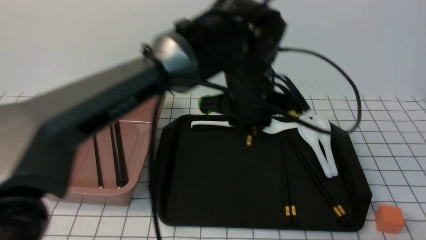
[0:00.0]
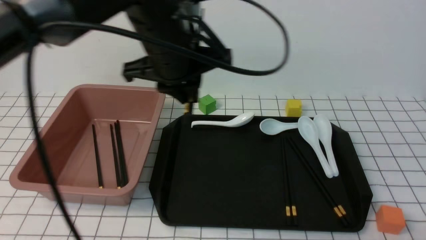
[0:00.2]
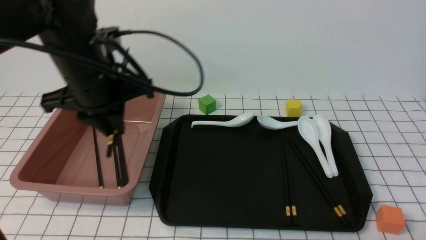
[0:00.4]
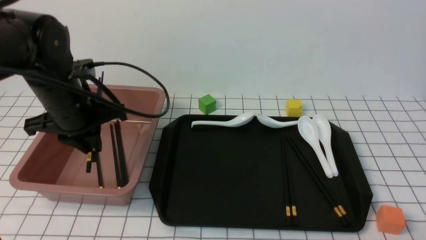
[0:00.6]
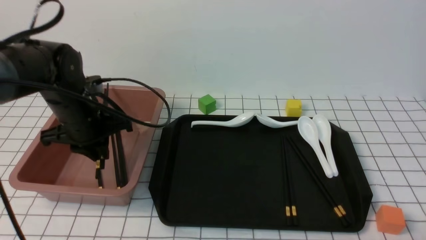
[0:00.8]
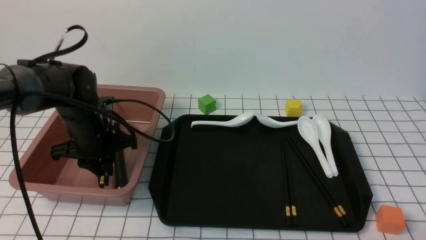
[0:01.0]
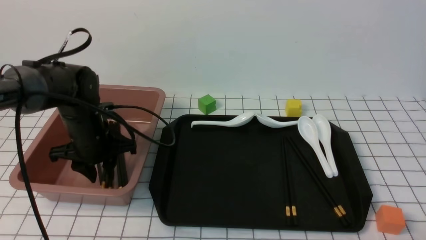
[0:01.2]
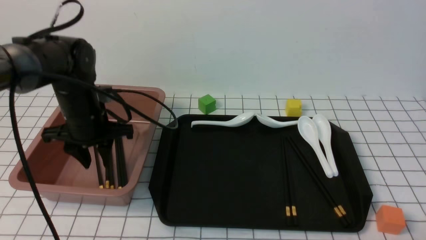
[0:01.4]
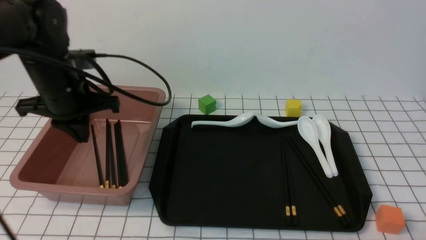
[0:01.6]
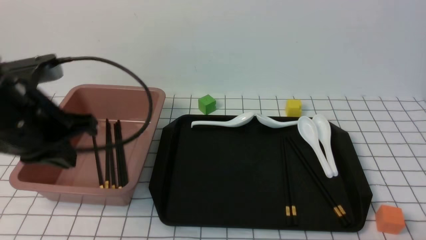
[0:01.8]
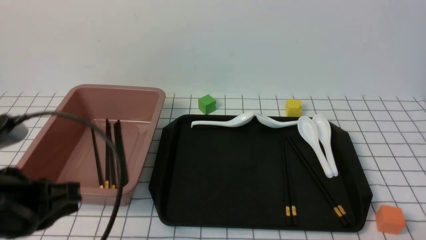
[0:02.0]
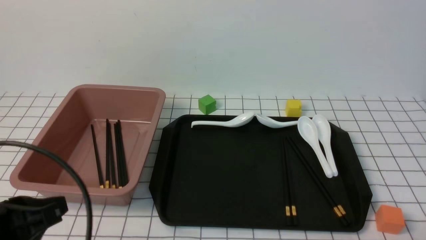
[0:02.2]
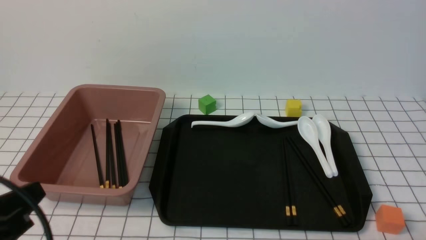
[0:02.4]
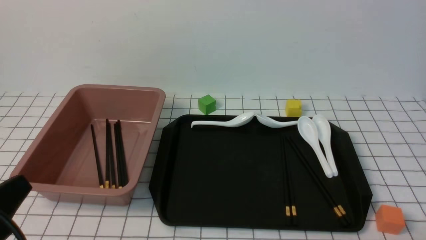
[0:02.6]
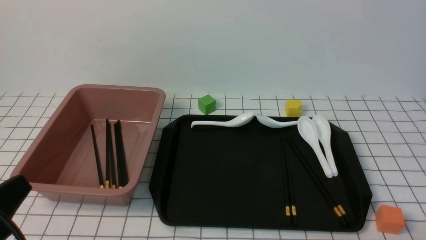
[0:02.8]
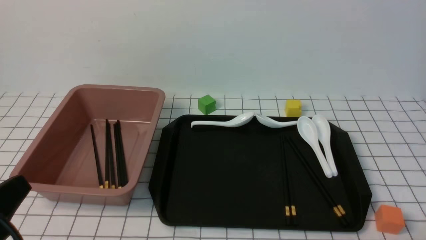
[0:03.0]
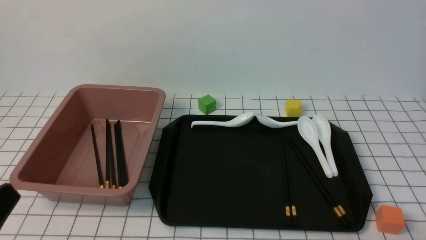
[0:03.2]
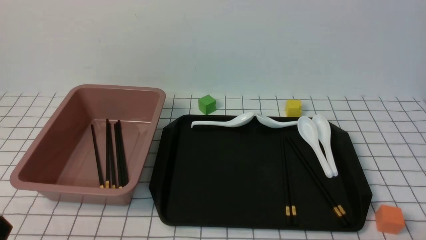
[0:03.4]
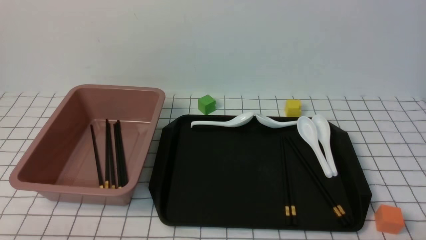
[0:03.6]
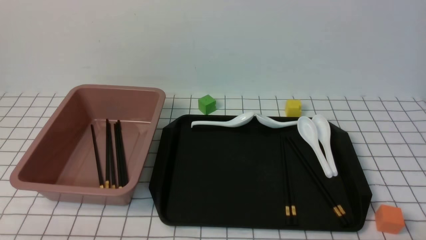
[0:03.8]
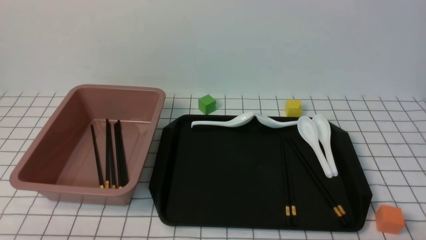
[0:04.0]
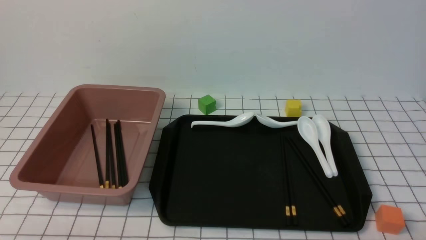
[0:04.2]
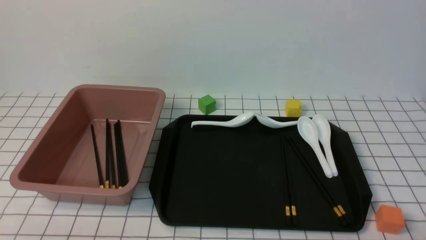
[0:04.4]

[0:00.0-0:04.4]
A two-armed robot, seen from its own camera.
Step, 0:00.0 to 0:01.4: use the left arm to put the chopsticks into the lunch box.
0:00.0 to 0:01.4: The left gripper goes about 20 cm to the left.
0:01.4 to 0:03.0: The left gripper travels backward by some 30 cm, and closes its fingers.
0:03.0 to 0:04.4: The left gripper heads downward, covering about 10 cm.

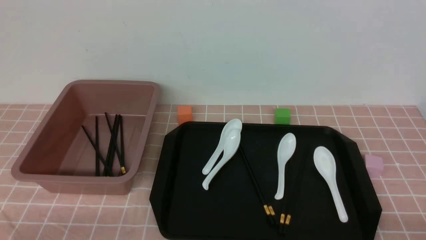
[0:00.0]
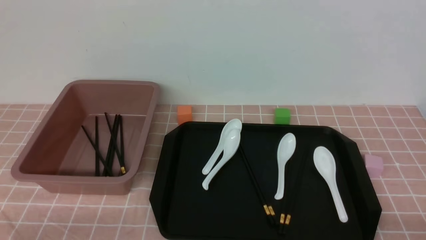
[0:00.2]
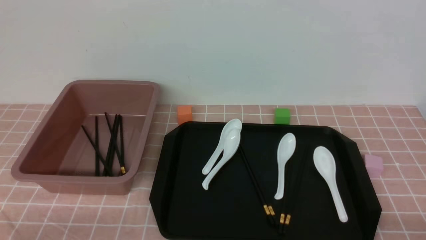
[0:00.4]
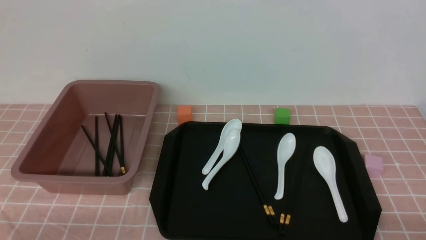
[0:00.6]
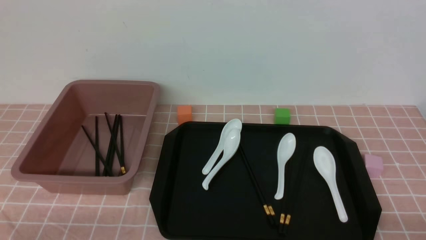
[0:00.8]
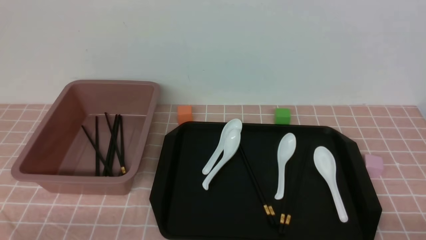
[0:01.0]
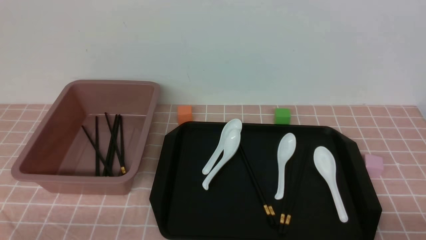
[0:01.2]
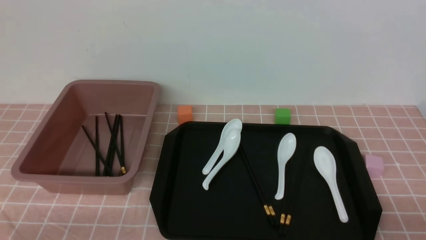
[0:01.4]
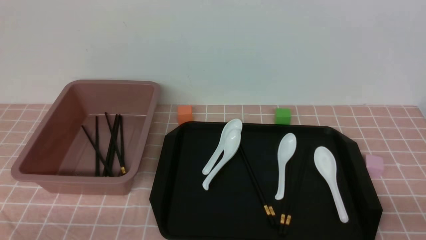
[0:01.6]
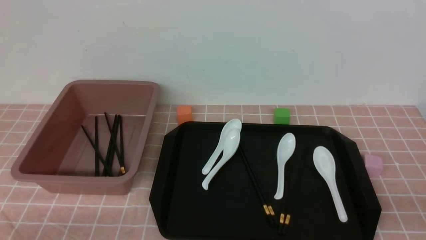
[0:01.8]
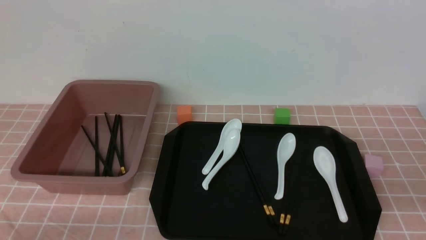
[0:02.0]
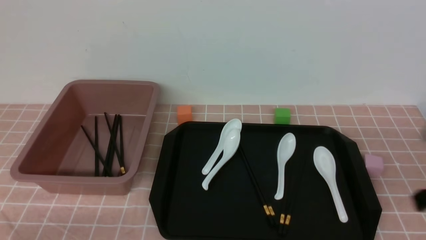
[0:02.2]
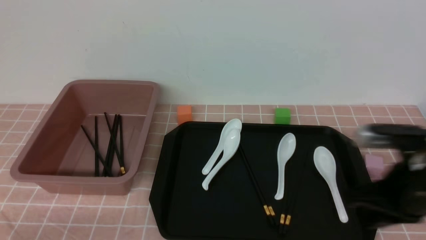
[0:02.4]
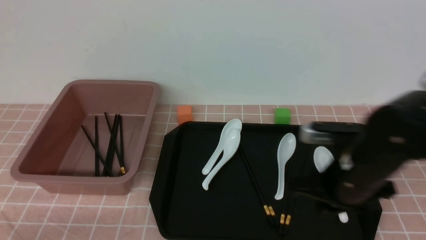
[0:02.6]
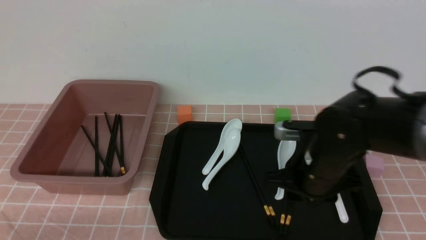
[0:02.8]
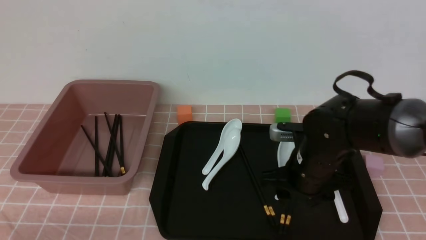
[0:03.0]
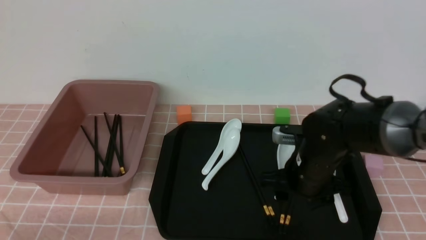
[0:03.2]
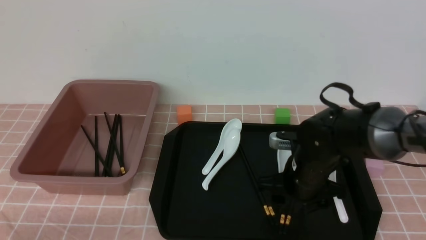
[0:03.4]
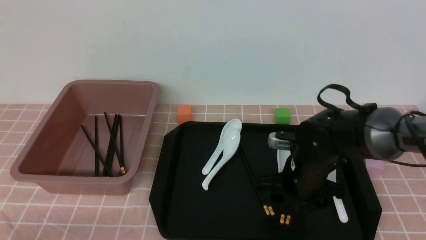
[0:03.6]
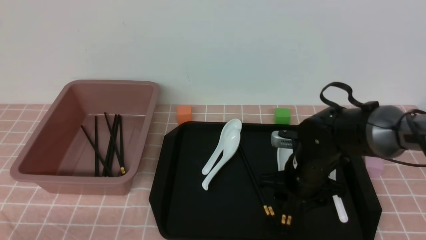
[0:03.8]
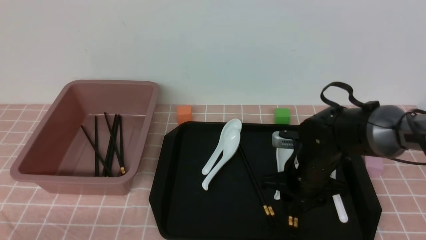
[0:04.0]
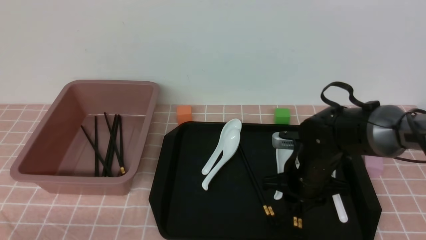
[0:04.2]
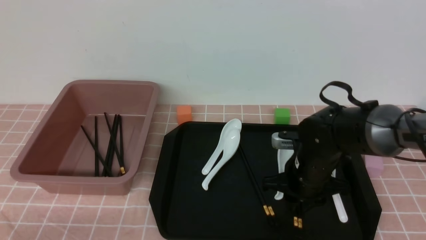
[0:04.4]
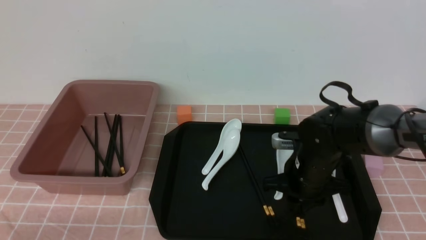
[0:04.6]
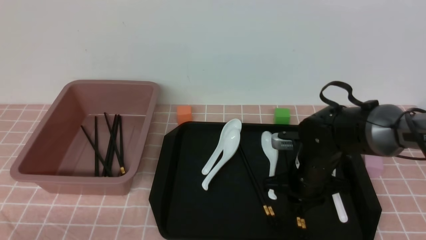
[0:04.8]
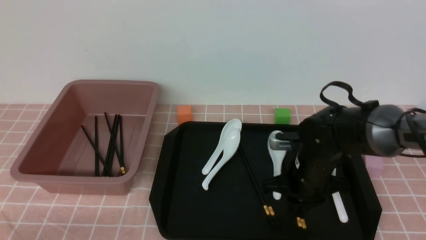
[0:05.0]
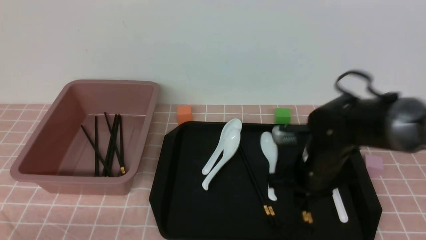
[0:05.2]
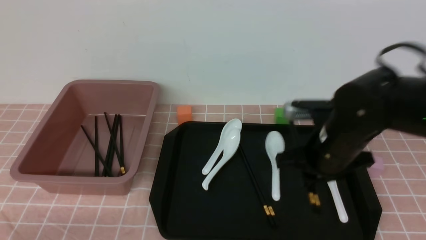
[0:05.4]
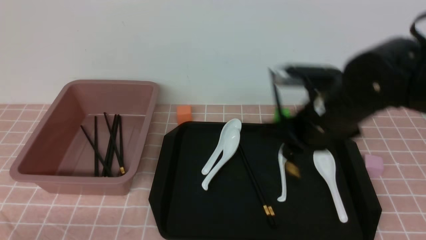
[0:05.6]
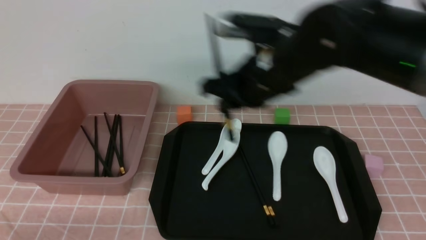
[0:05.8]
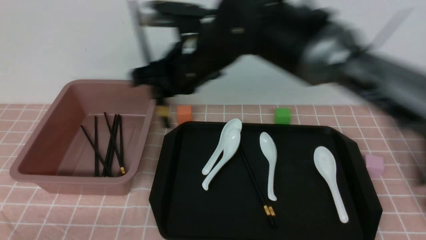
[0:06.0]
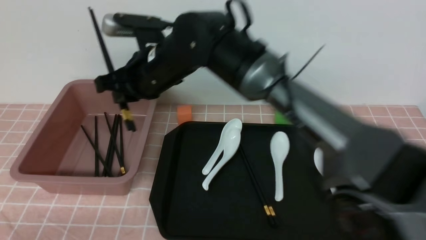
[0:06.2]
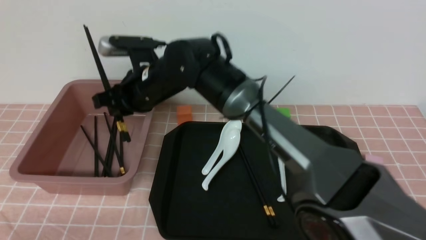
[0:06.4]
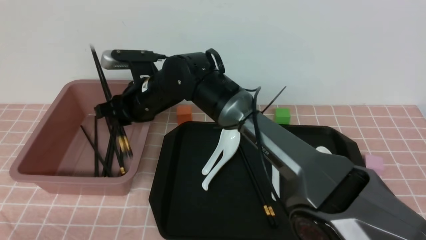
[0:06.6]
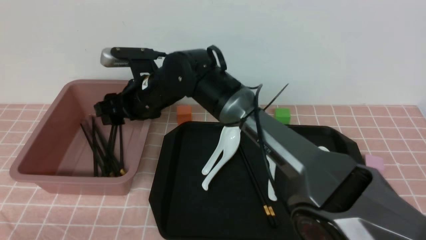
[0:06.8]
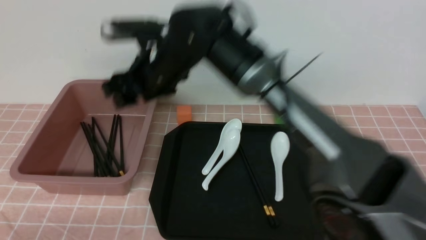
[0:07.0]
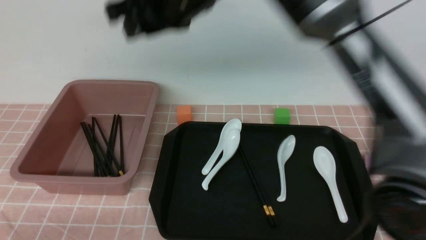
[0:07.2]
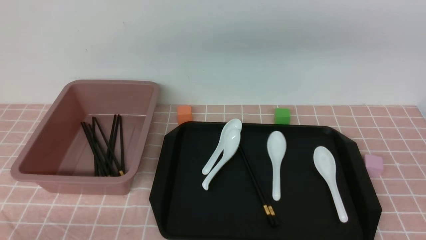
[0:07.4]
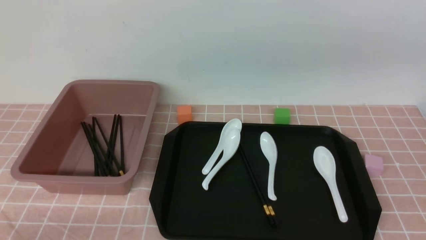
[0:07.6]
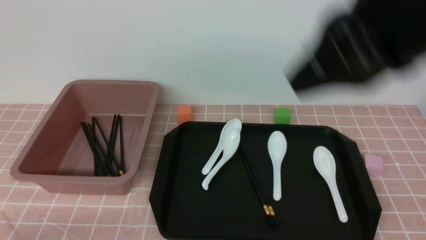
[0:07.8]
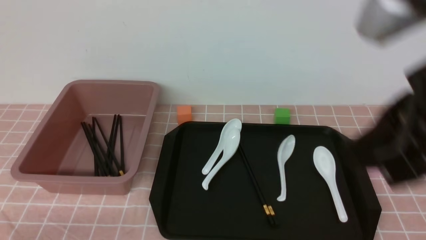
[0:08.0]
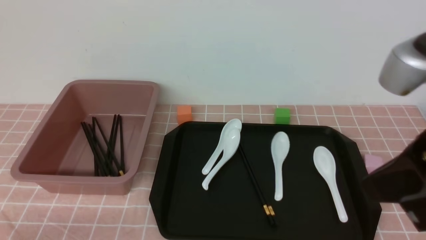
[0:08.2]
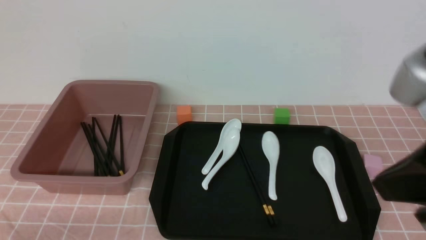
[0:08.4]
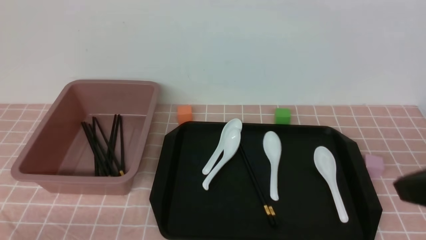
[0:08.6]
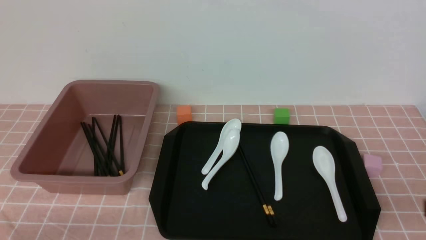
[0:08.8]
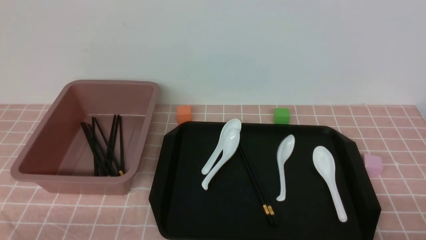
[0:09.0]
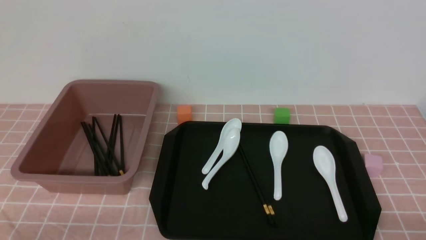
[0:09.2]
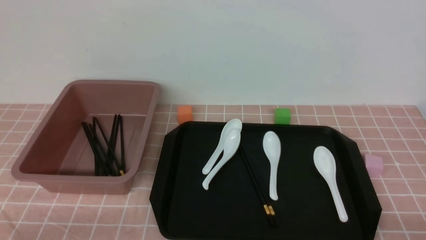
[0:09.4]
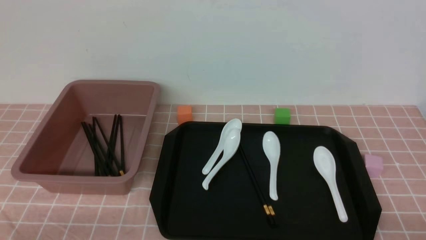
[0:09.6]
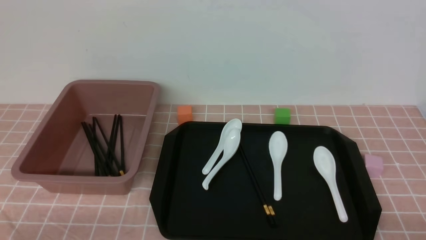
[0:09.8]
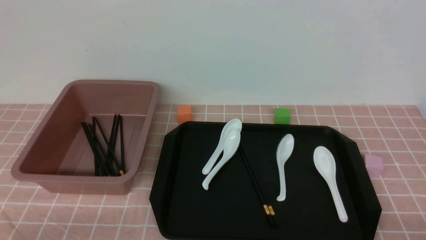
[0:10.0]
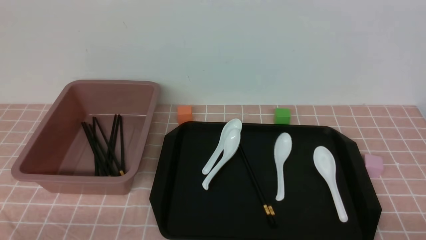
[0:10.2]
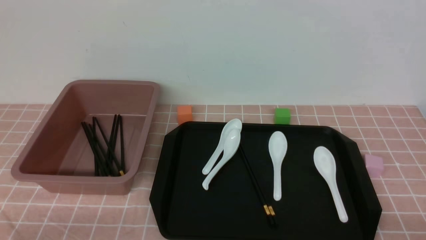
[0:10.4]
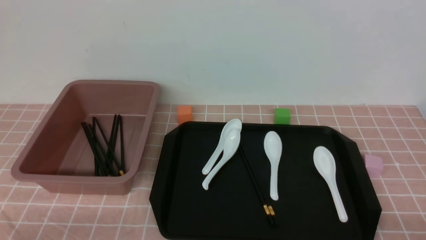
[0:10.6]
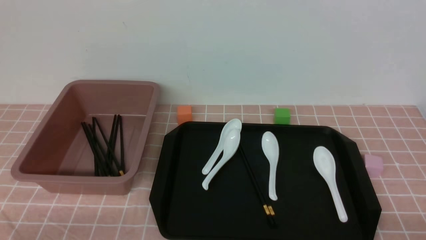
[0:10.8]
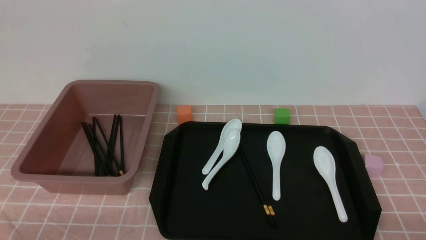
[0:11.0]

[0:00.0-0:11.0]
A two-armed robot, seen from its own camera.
Step, 0:00.0 to 0:05.4: use the right arm to grab a pair of chopsticks.
Step, 0:05.8 to 0:07.0: use the right arm to put the chopsticks into the lunch box.
0:01.6 to 0:03.2: The right gripper shifts approximately 30 cm forward and to the left, and opens its fingers.
0:03.2 to 0:04.8: The right gripper closes up.
0:04.8 to 0:06.2: The right gripper travels to the left and upward by roughly 25 cm.
0:06.2 to 0:07.8: The right gripper goes up and down, some 25 cm each way, reversing 2 times, and opens, then closes once more.
0:07.8 to 0:09.4: The right gripper travels downward and to the right by about 35 cm.
0:09.4 to 0:11.0: Neither gripper changes place.
